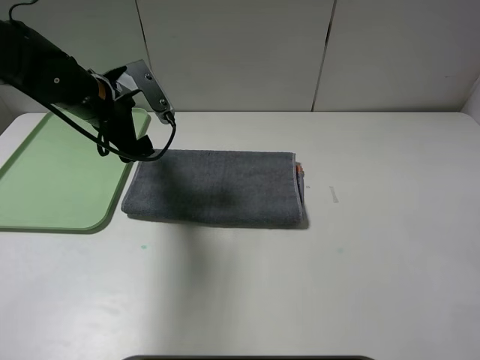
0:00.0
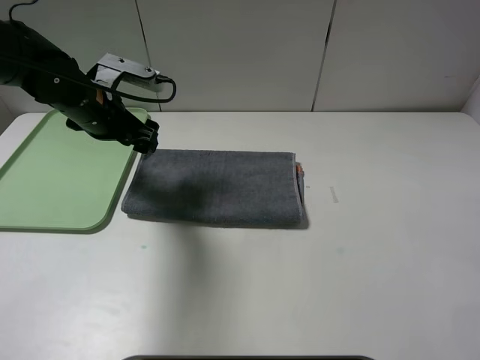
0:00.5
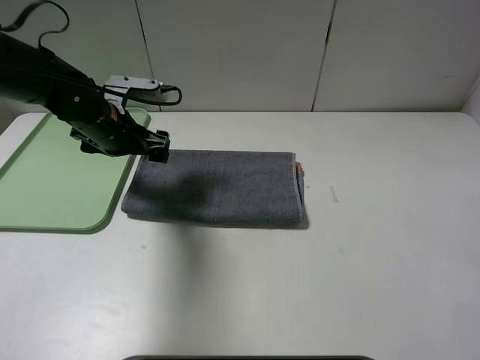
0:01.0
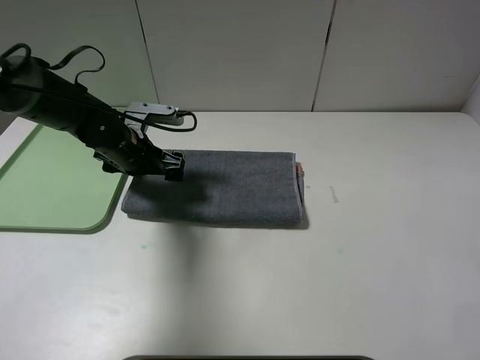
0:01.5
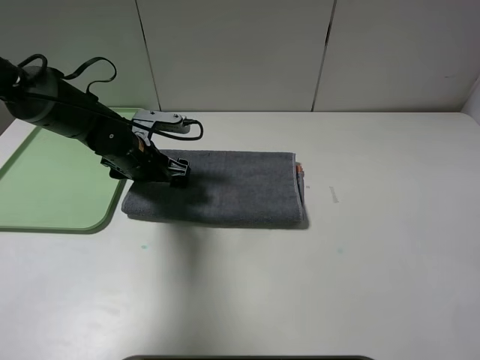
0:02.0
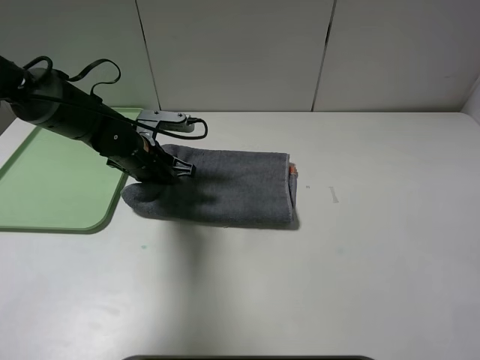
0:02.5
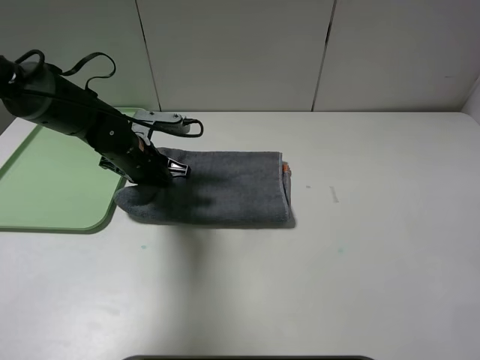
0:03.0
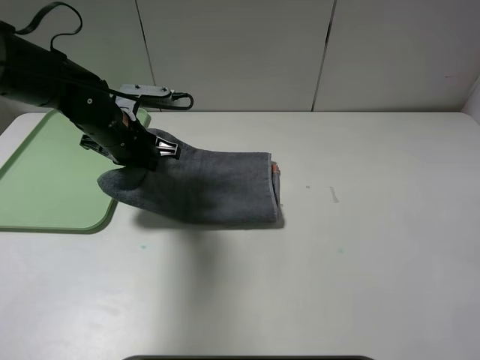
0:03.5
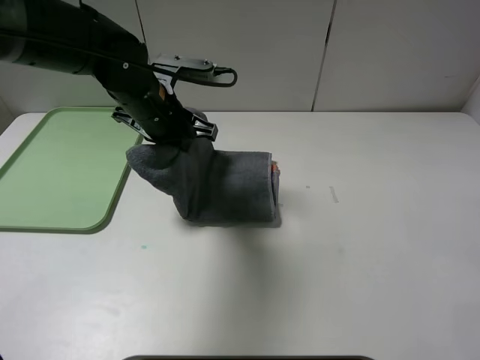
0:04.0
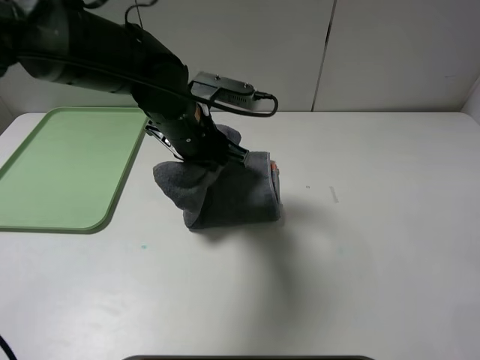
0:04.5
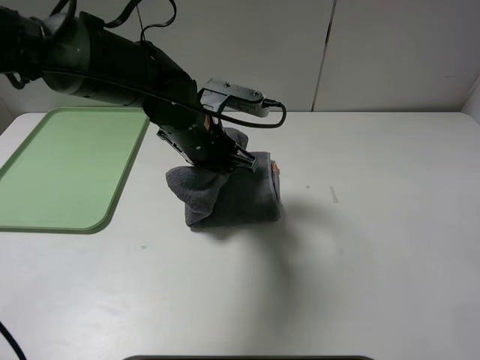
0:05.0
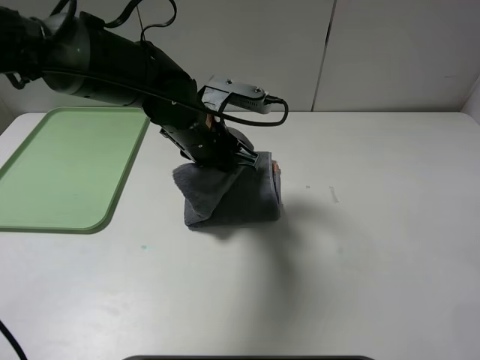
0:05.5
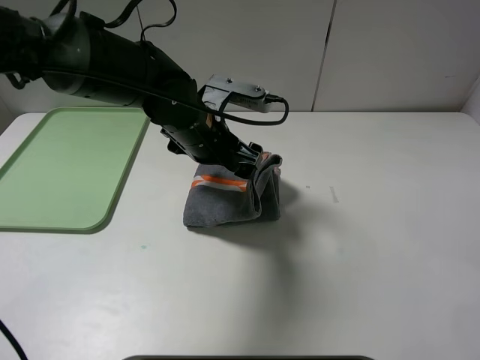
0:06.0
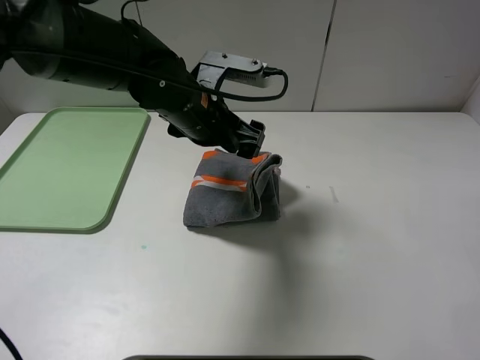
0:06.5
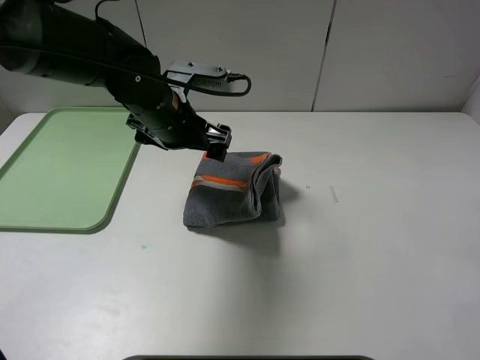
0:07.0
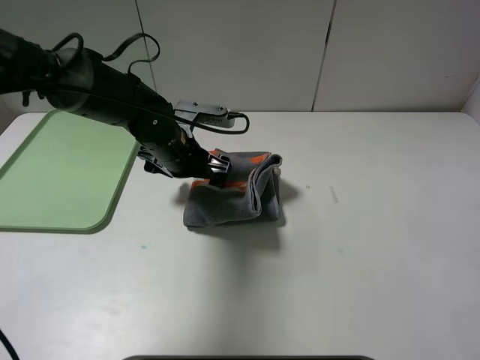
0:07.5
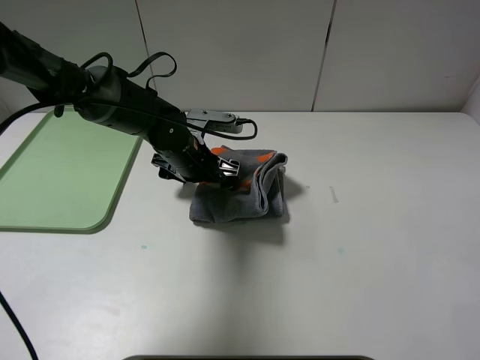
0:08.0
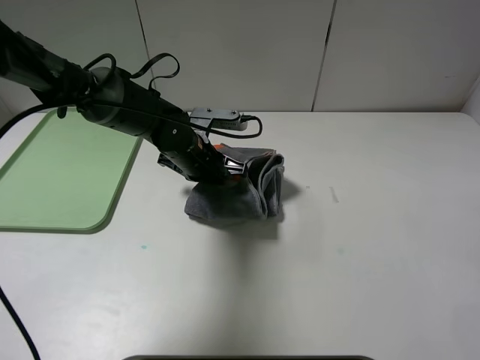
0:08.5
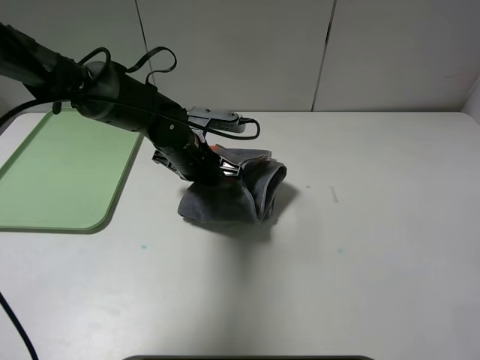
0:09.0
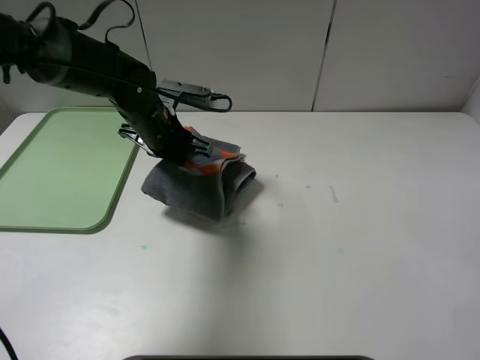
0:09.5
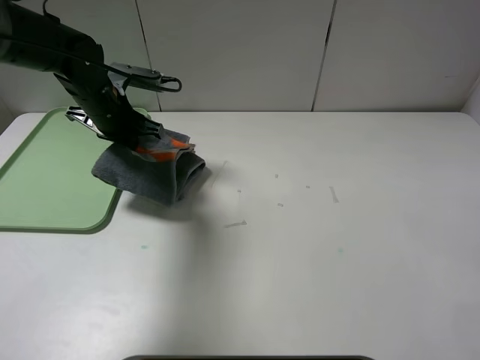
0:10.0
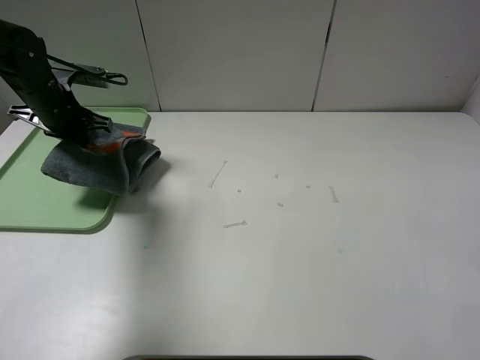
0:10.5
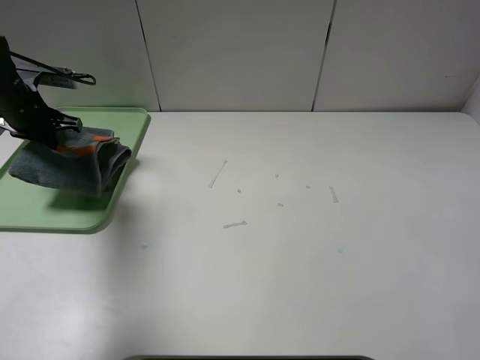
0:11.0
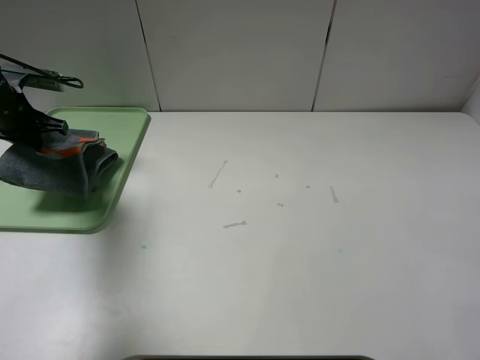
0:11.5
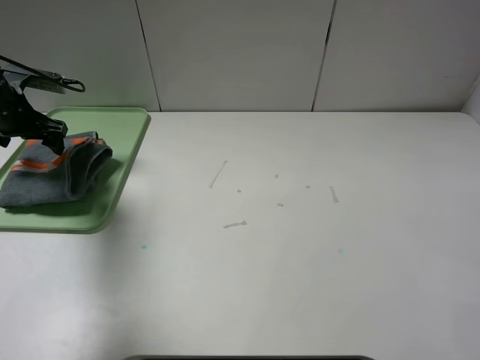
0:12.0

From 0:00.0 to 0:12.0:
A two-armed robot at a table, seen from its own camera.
Step, from 0:00.0 to 0:06.0: Fold the grey towel from left to right with left gripper.
From 0:00.0 to 0:02.0: The left gripper moves downward, approximately 10 cm.
From 0:02.0 to 0:04.0: The left gripper moves upward and to the right, roughly 10 cm, and closes its fingers.
From 0:04.0 to 0:06.0: The left gripper travels to the right by approximately 5 cm, and opens its fingers.
From 0:06.0 to 0:08.0: The left gripper is displaced downward by about 10 cm.
From 0:08.0 to 0:10.0: The left gripper travels to the left and upward by roughly 15 cm, and closes its fingers.
From 0:10.0 to 0:12.0: The left gripper heads to the left, covering approximately 15 cm, and opens.

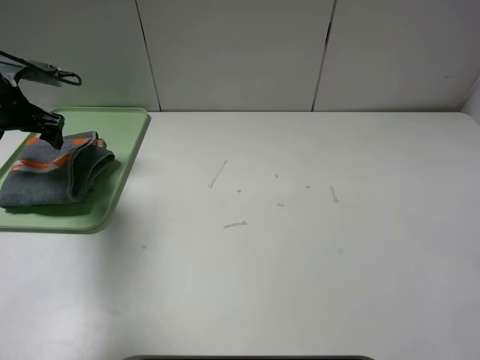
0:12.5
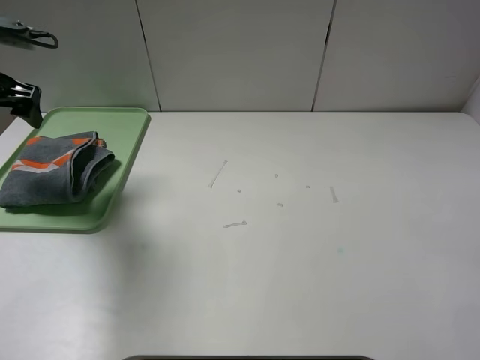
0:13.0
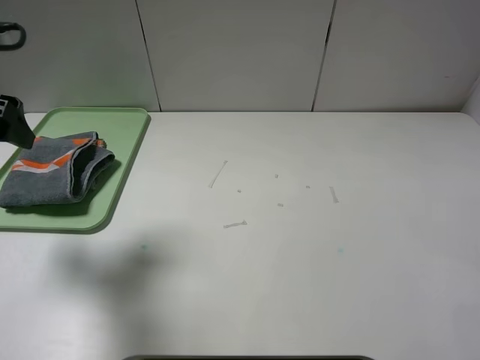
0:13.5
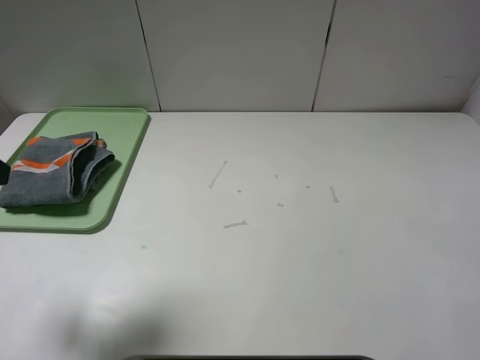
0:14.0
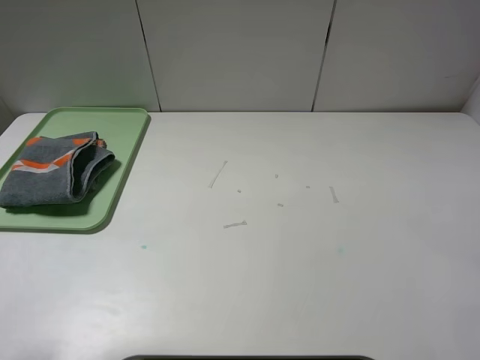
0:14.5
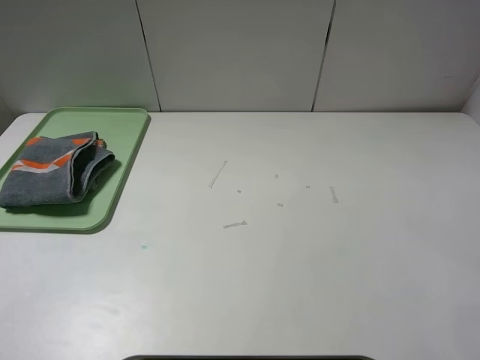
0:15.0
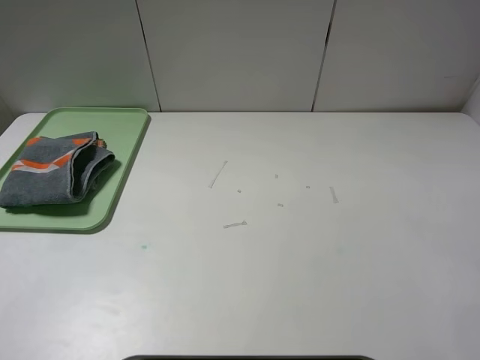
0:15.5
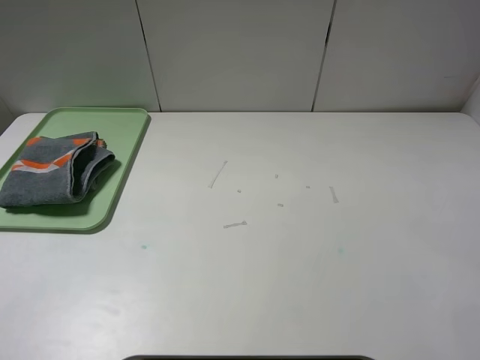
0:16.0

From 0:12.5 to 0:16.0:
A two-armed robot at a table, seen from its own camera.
From 0:12.5 to 0:14.5: The left gripper travels backward by approximately 30 cm.

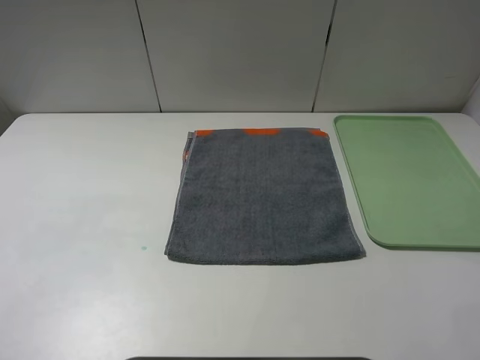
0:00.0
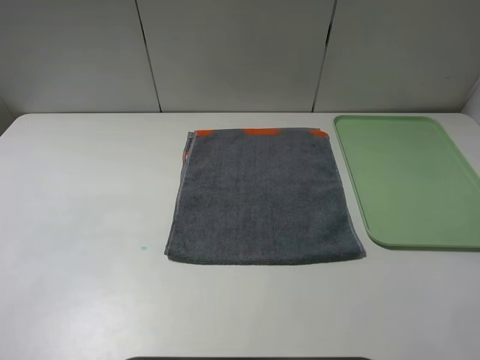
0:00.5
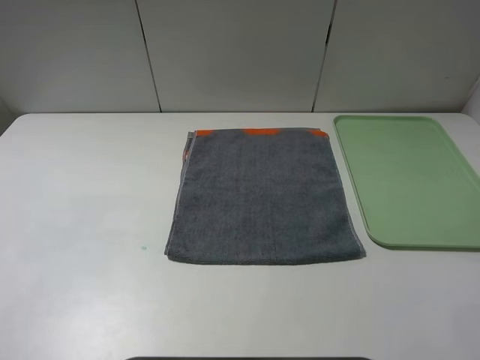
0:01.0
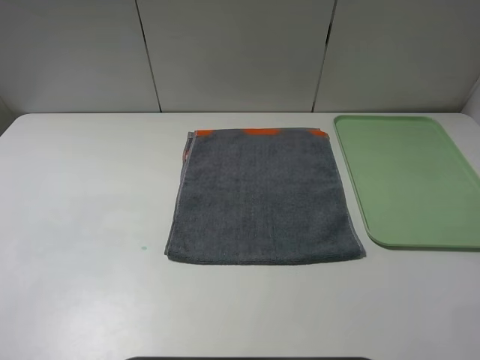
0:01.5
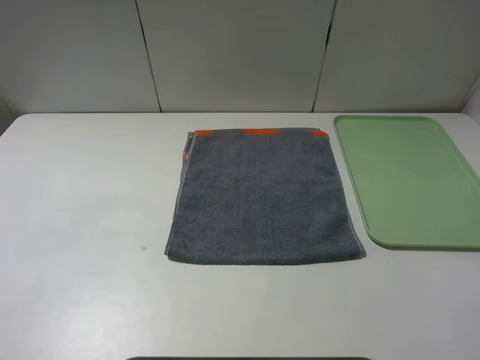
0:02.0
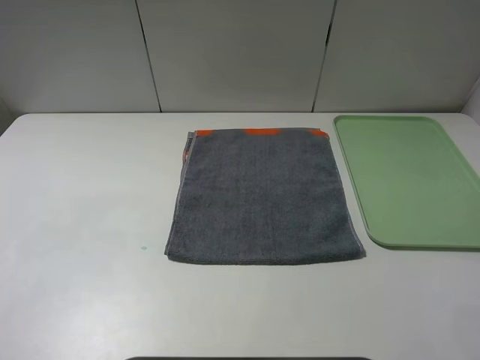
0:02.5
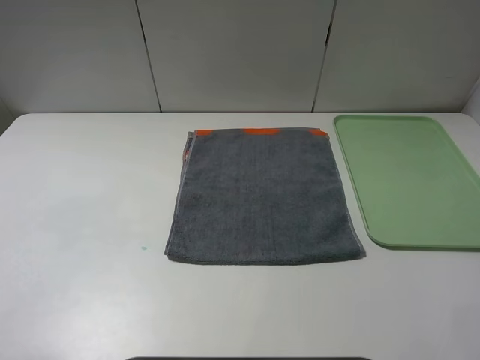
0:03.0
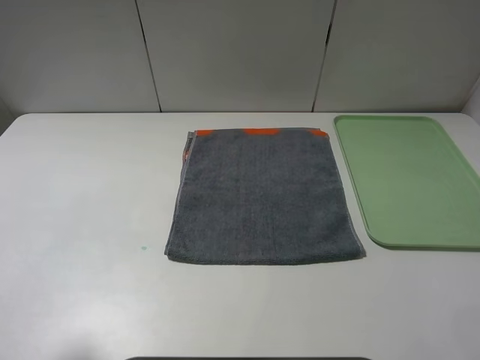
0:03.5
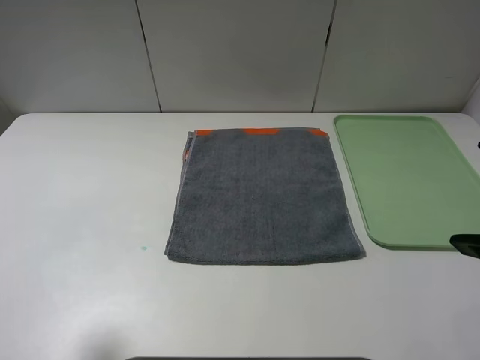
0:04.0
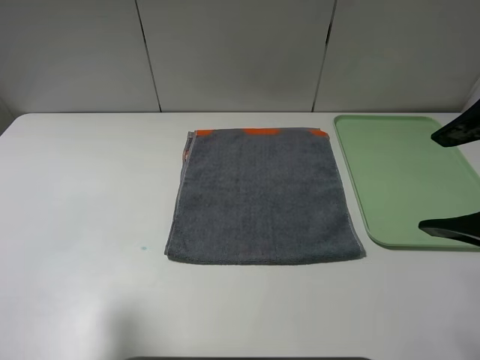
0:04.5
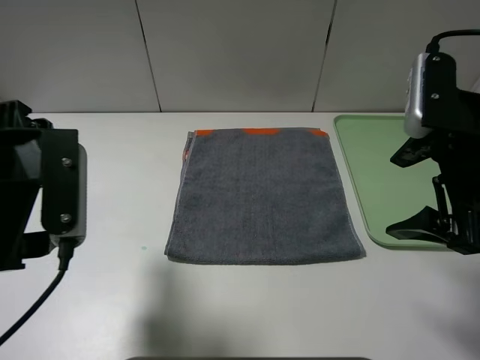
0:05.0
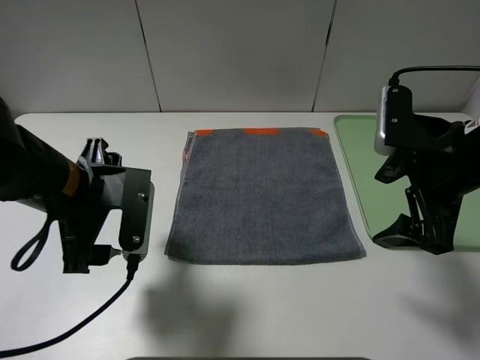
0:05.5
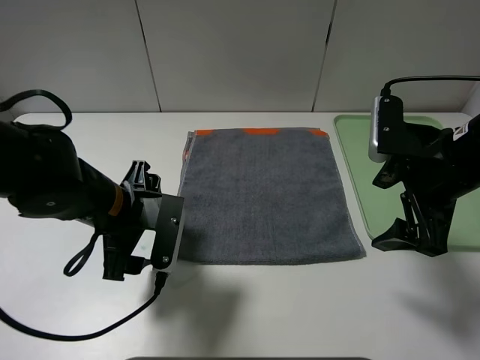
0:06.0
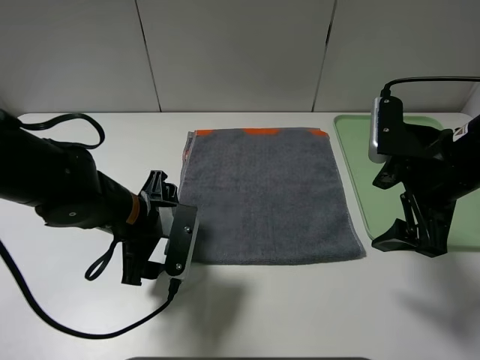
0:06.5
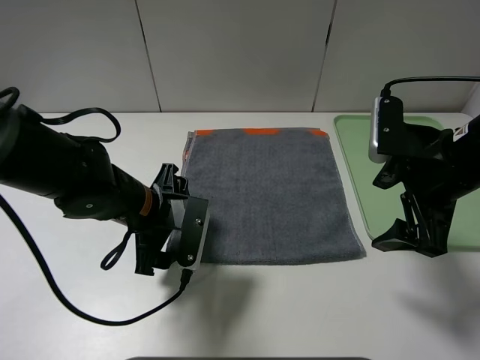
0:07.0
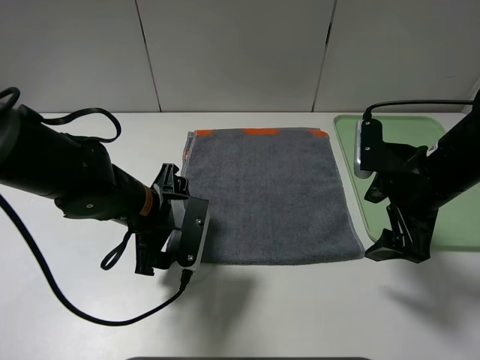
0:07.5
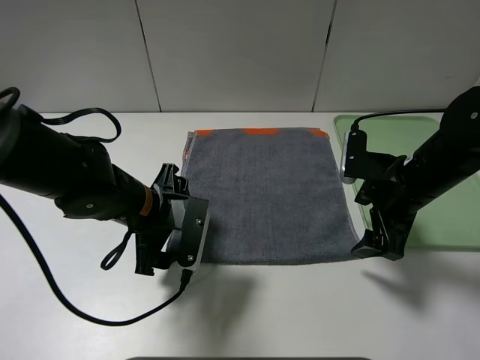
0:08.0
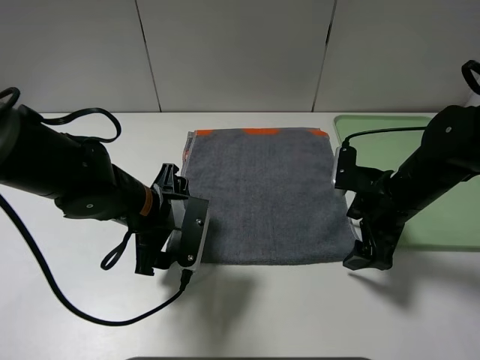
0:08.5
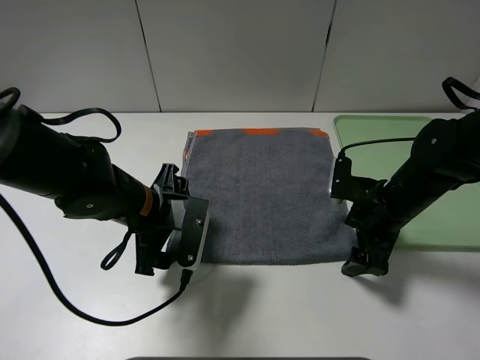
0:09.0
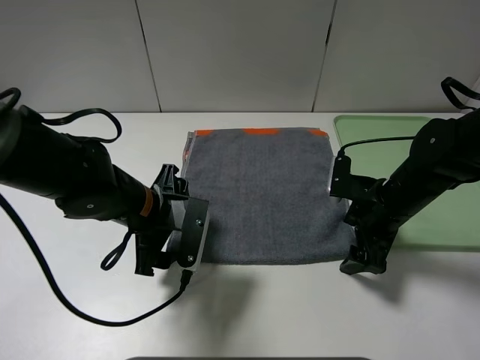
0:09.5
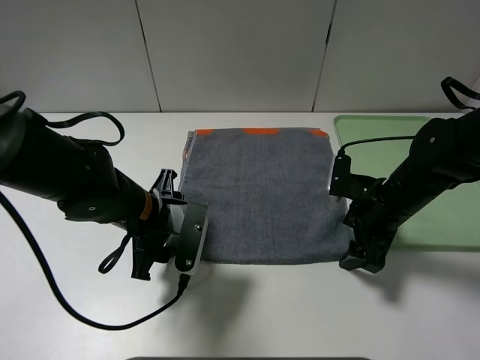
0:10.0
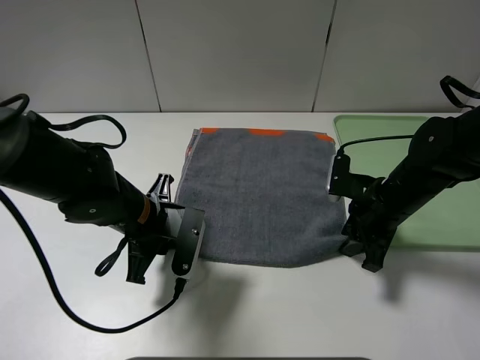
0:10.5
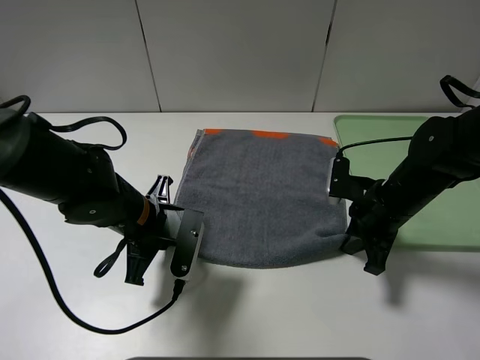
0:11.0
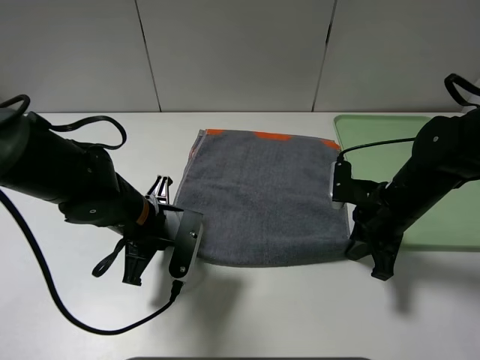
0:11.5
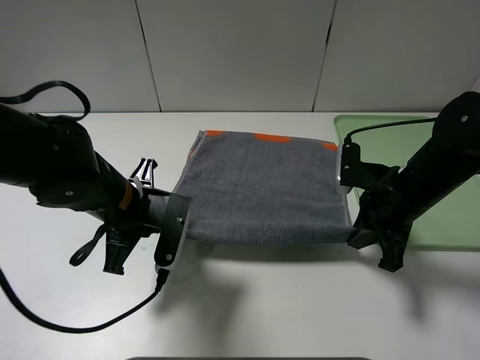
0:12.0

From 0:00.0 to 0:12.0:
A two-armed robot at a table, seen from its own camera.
From 0:00.0 to 0:02.0: Neither gripper changes place.
From 0:02.0 to 0:04.0: The left gripper heads forward, covering approximately 5 cm.
From 0:04.0 to 0:06.0: The right gripper goes some 15 cm forward and downward; the left gripper shifts some 25 cm downward, forward and to the right.
From 0:06.0 to 0:08.0: The right gripper is displaced downward by about 5 cm.
From 0:08.0 to 0:10.0: The right gripper shifts some 5 cm downward.
From 0:10.0 to 0:12.0: The left gripper closes, while the right gripper closes its fingers.
